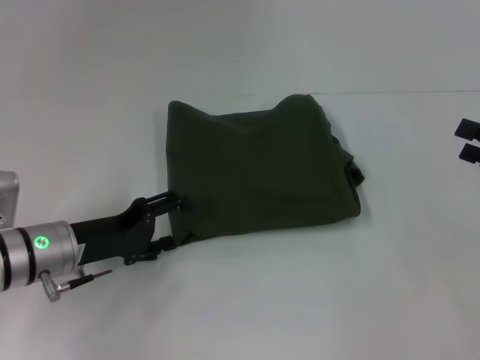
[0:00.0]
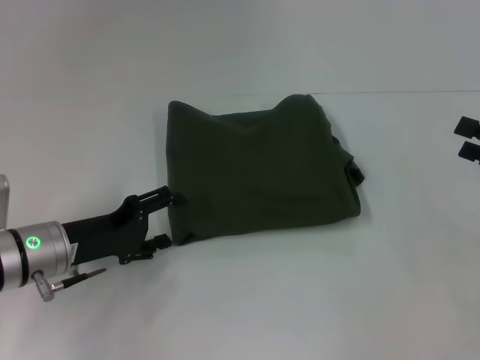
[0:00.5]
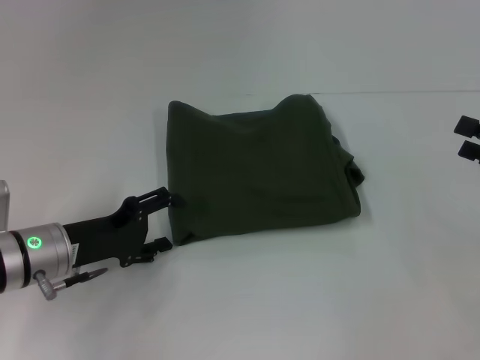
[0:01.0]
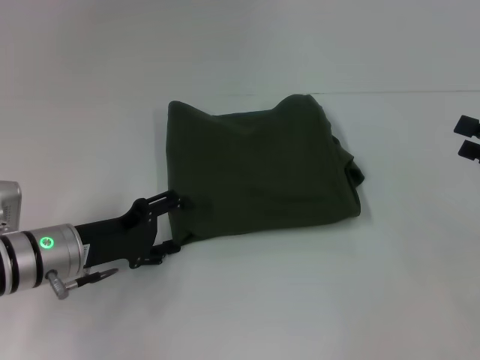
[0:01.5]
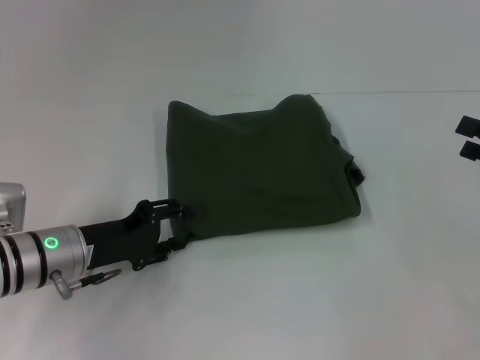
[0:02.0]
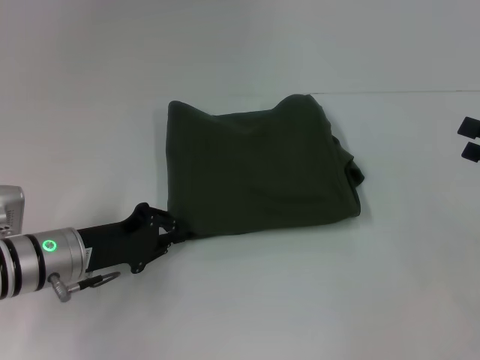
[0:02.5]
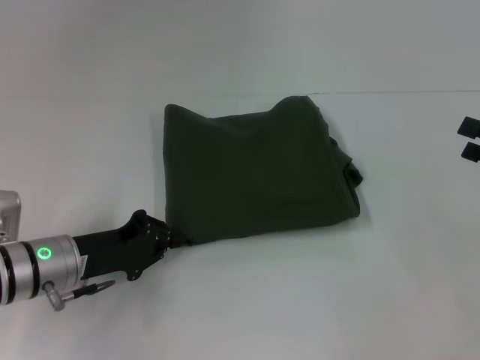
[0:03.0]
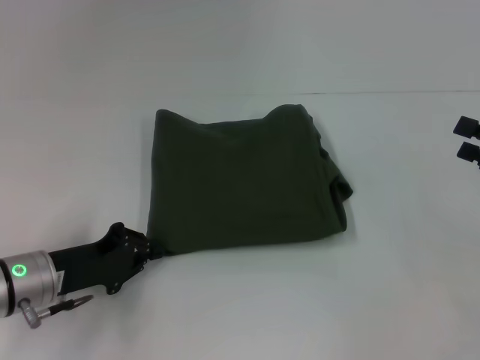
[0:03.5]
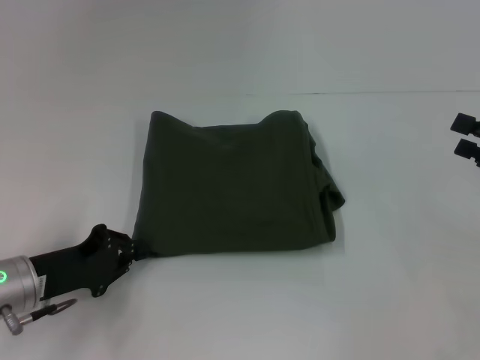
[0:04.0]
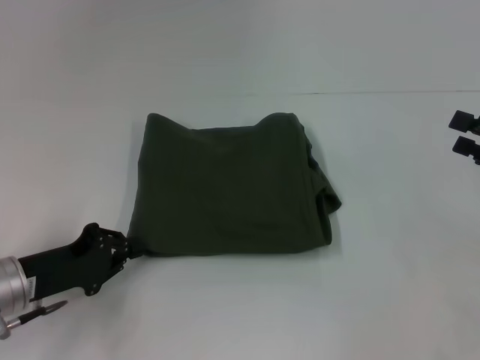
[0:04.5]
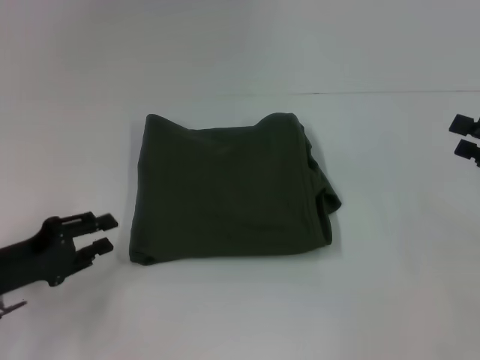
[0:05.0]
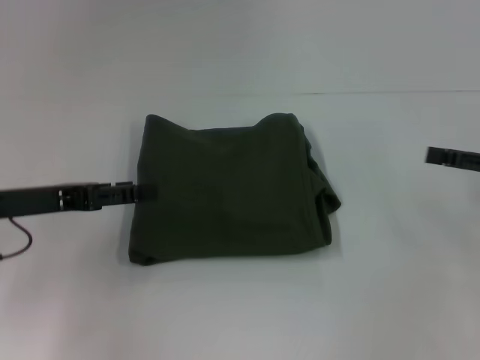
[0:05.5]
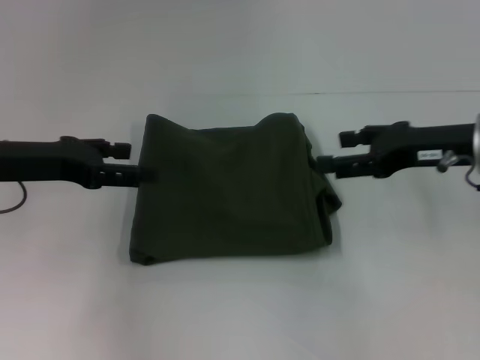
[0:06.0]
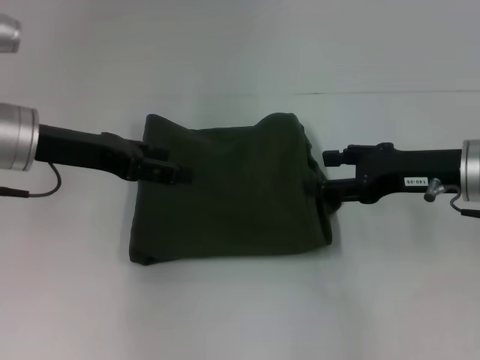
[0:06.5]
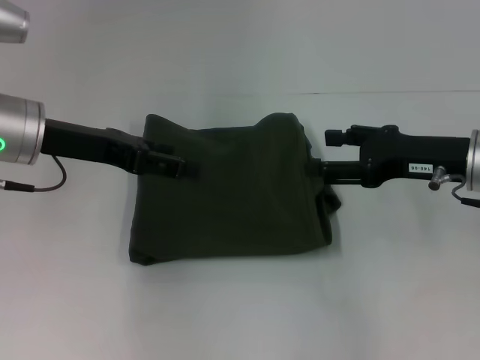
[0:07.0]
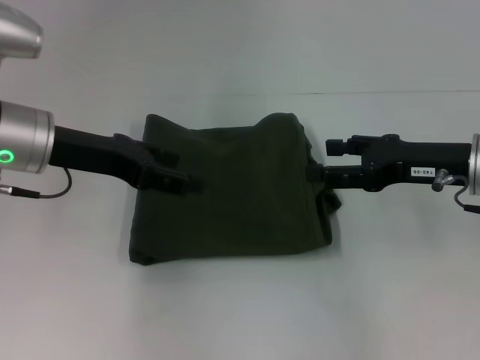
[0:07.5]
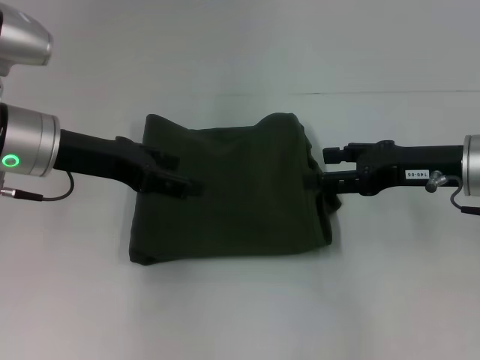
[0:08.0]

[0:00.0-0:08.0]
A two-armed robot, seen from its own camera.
0:00.0 to 0:02.0: The grippers make only small movements.
0:02.0 to 0:04.0: The left gripper changes place by approximately 5 cm, and closes.
0:04.0 to 0:06.0: The right gripper heads to the left and forward, covering some 15 cm. Meanwhile the left gripper goes roughly 15 cm upward and forward, and opens its fingers.
0:06.0 to 0:08.0: The left gripper is displaced to the right by some 5 cm.

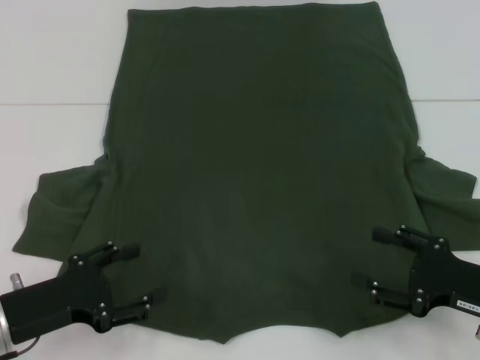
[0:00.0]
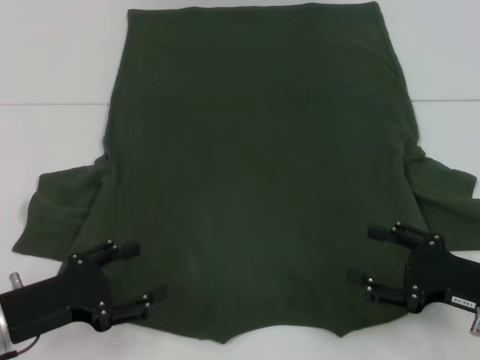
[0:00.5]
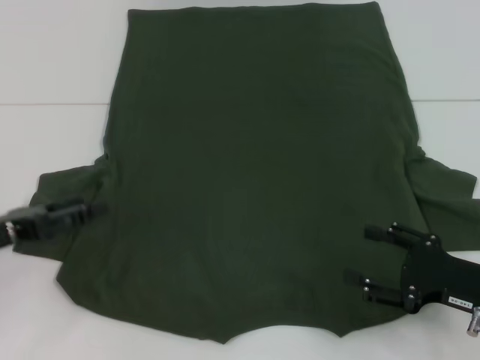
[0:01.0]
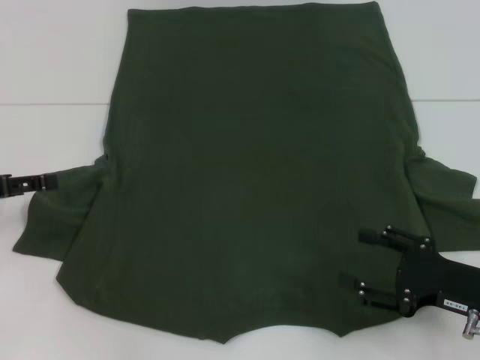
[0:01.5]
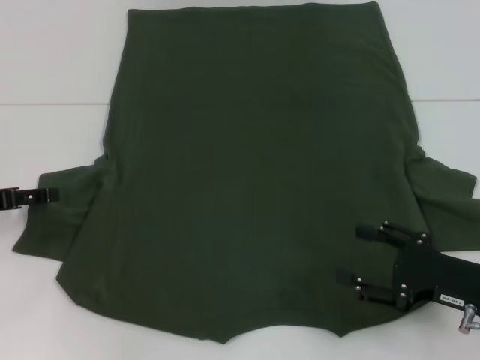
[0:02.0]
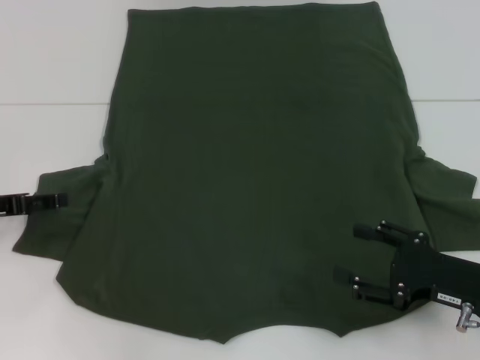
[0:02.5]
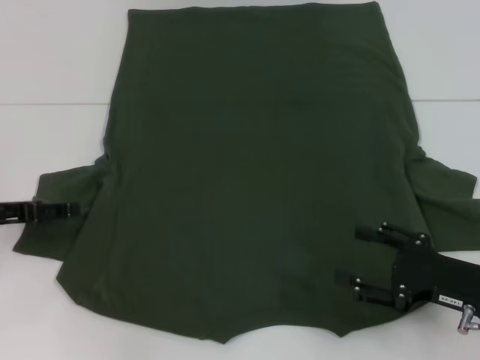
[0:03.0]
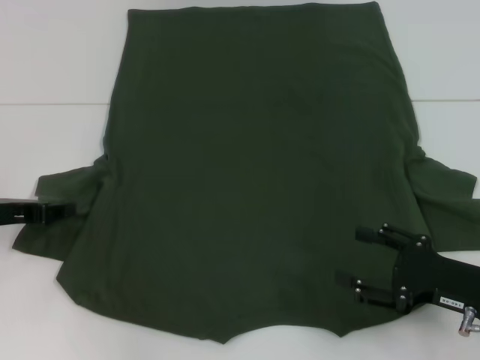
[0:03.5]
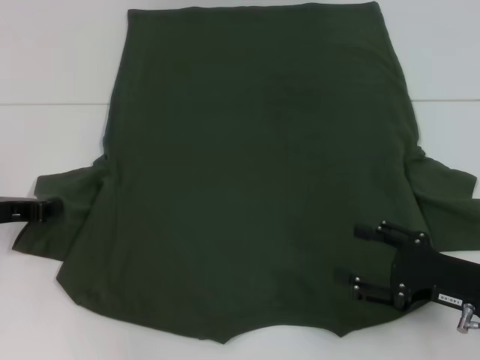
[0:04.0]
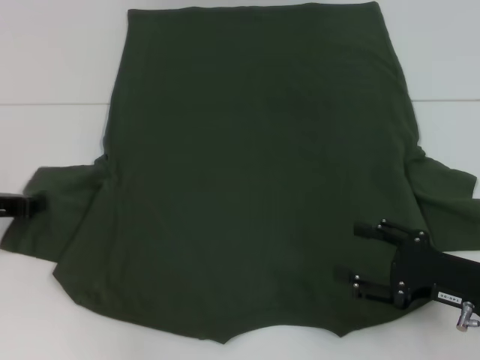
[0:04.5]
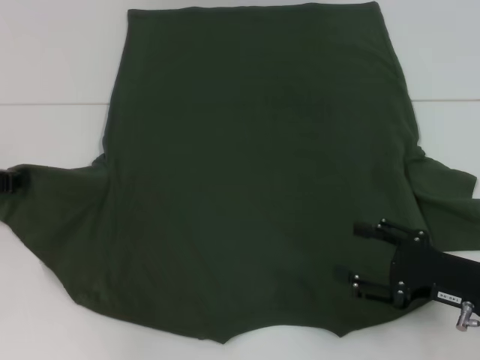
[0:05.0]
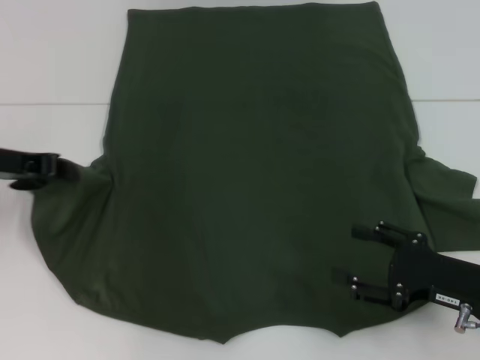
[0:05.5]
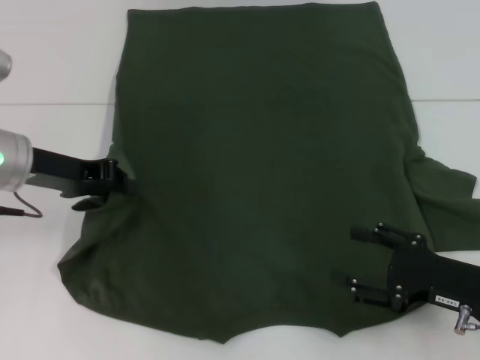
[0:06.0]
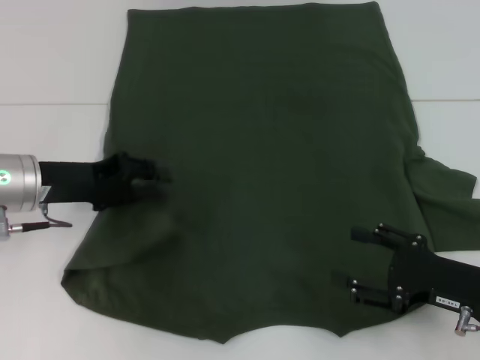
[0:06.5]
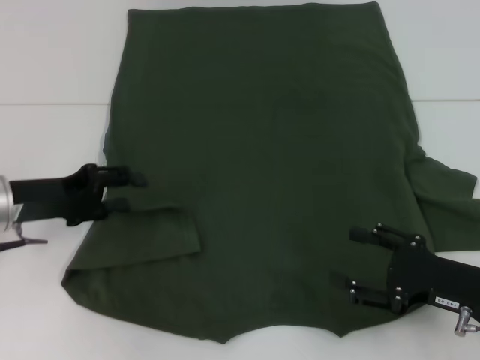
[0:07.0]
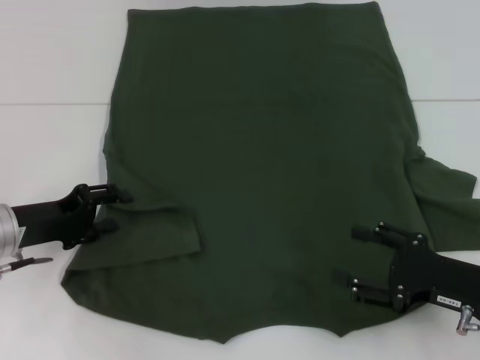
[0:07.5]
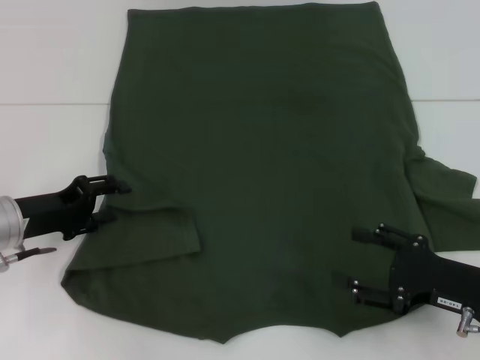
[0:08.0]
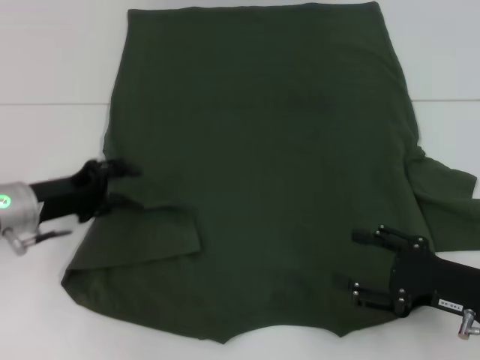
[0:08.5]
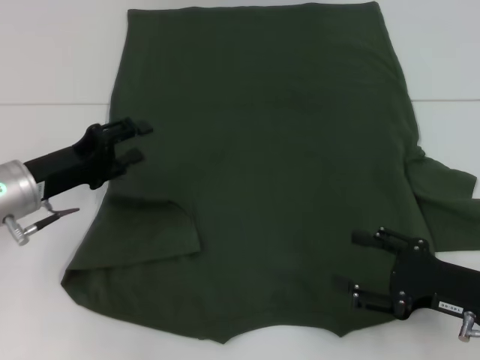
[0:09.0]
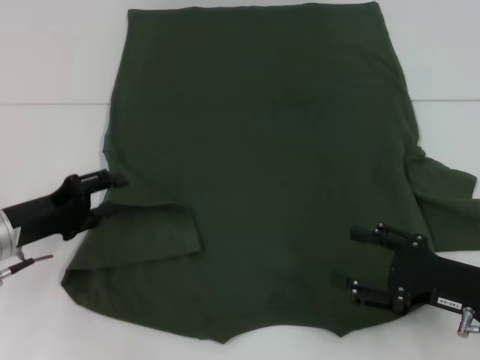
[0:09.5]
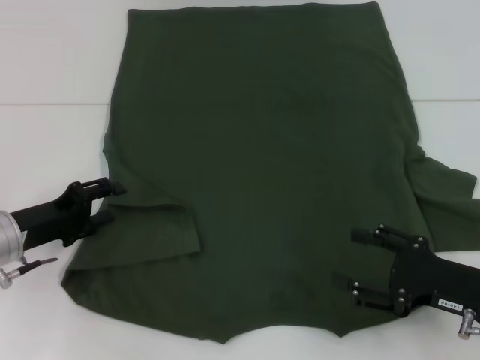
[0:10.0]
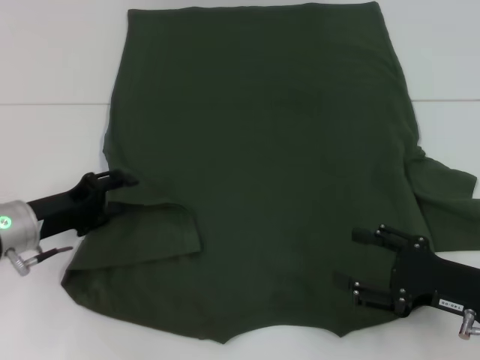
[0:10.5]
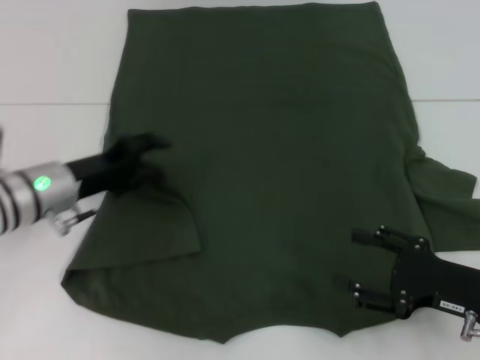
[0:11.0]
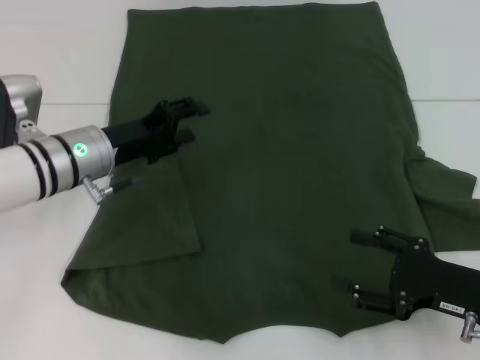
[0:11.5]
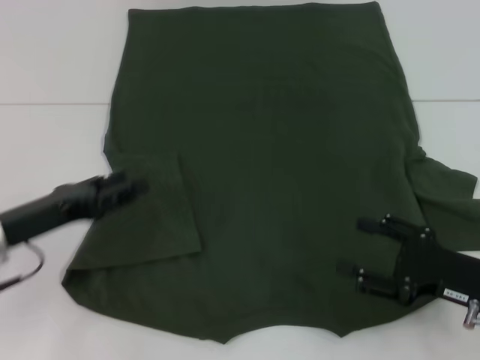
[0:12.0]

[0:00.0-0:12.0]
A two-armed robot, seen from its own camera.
Step, 0:00.0 to 0:11.0: Fold the bottom left sleeve with your left hand.
0:00.0 to 0:02.0: The left gripper heads forward, to the left and upward, covering about 15 cm.
0:02.0 to 0:04.0: The left gripper closes up.
0:04.0 to 0:06.0: The left gripper travels to the right and upward by some 10 cm.
0:06.0 to 0:08.0: The left gripper heads downward, covering approximately 10 cm, and opens its fingers.
0:08.0 to 0:10.0: The grippers move only a little.
0:10.0 to 0:12.0: The left gripper travels forward and back again, roughly 5 cm each way.

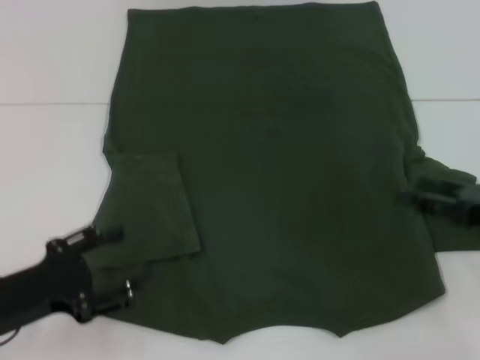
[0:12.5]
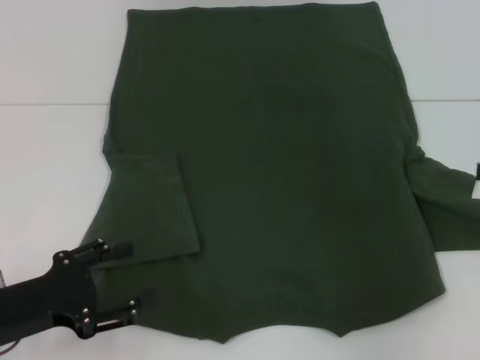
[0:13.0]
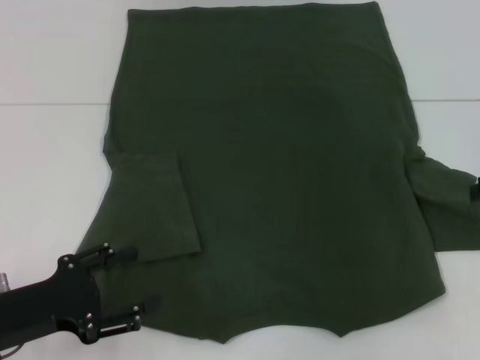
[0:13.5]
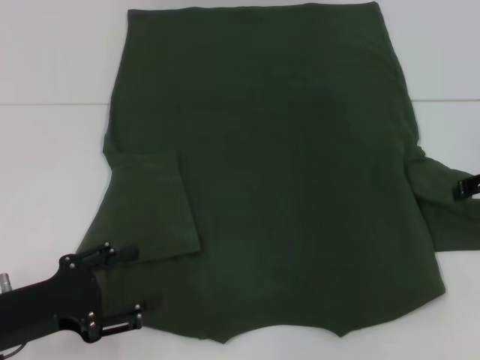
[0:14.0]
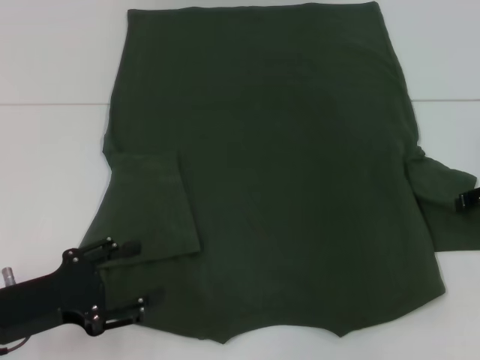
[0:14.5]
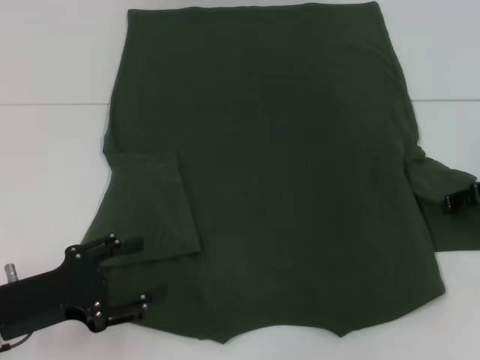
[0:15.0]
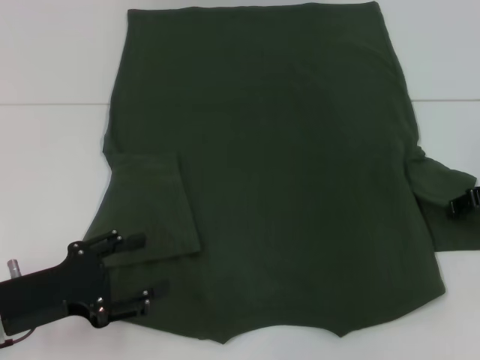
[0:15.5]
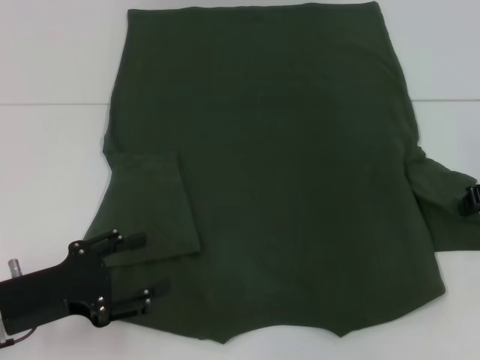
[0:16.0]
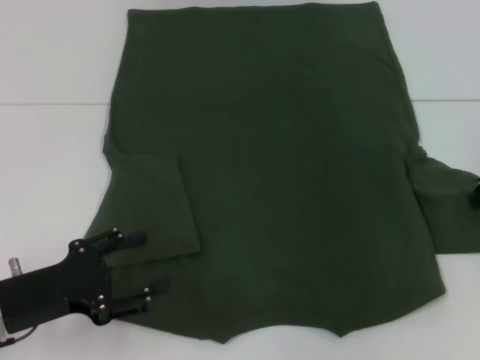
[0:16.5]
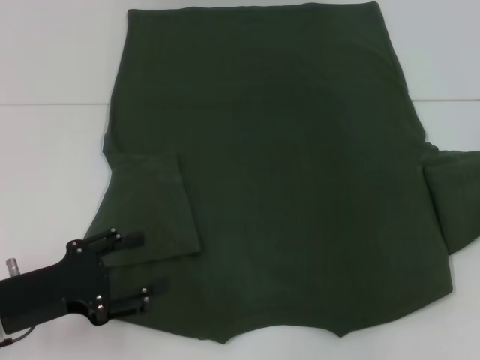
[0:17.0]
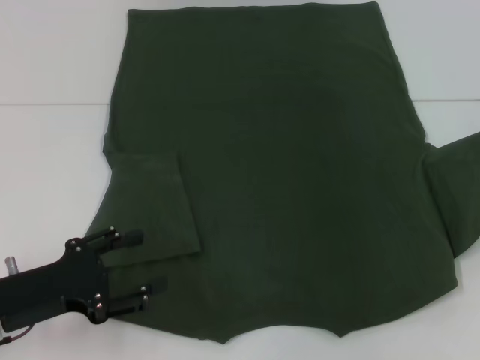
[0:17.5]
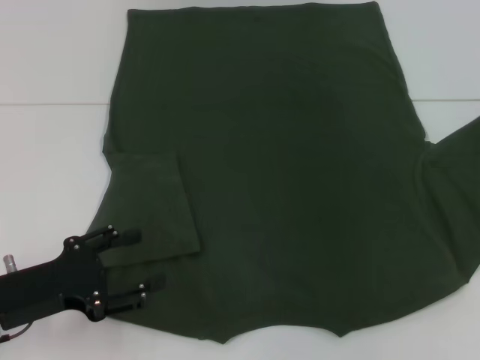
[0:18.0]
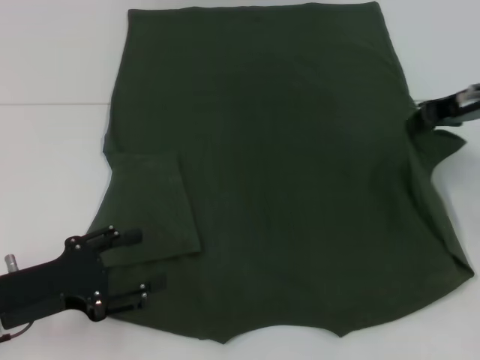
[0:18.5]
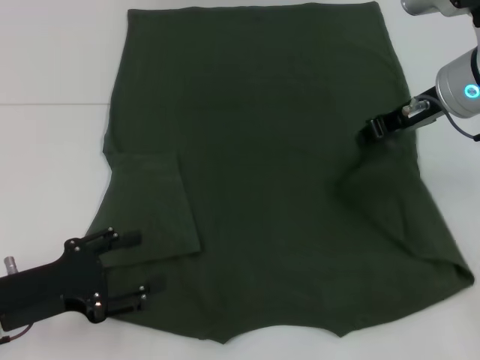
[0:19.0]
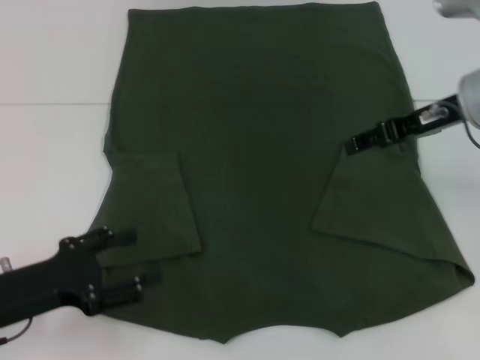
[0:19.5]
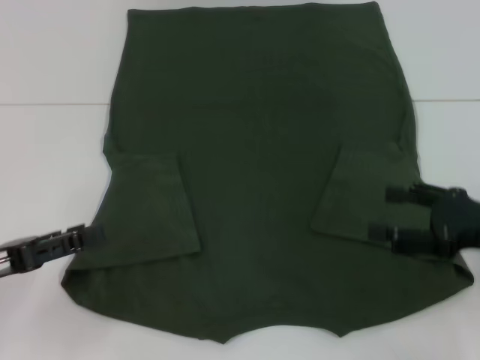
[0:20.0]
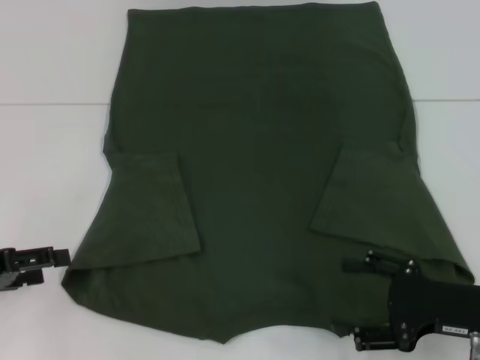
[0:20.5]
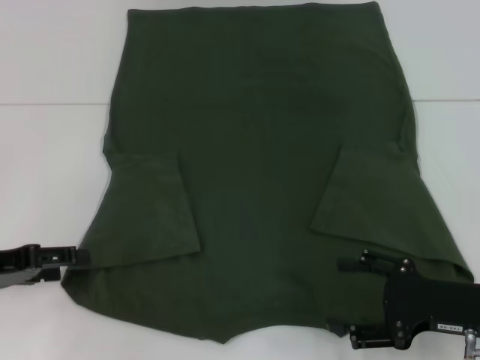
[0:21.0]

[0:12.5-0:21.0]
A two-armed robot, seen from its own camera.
Step, 0:12.5 to 0:19.0: Fold the bottom right sleeve with your right hand.
0:16.5 to 0:19.0: The right gripper heads to the left and upward, covering about 15 cm.
0:19.0 to 0:21.0: The left gripper shifts some 5 cm to the left; the right gripper shifts about 25 cm backward and downward, and opens its fingers.
